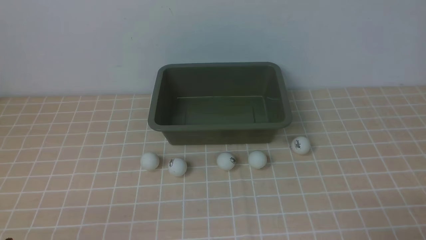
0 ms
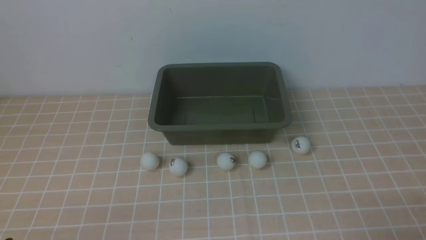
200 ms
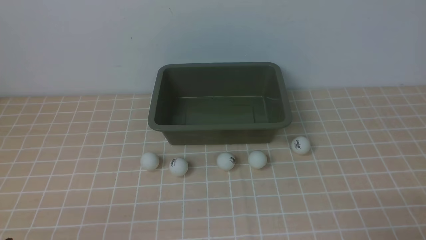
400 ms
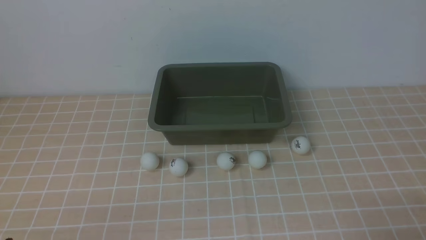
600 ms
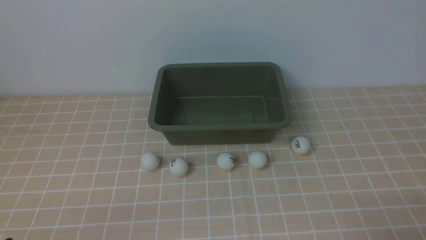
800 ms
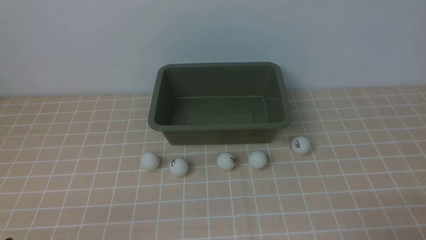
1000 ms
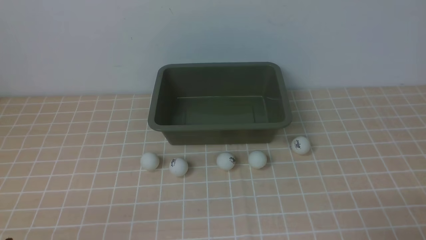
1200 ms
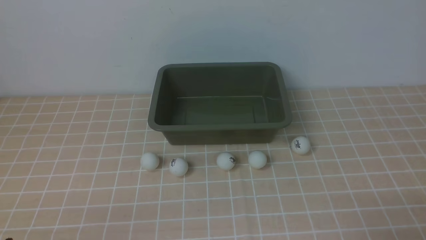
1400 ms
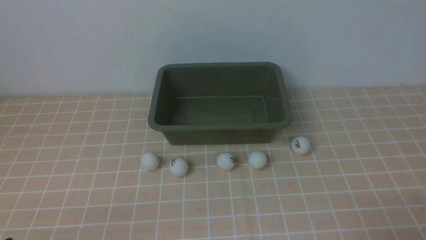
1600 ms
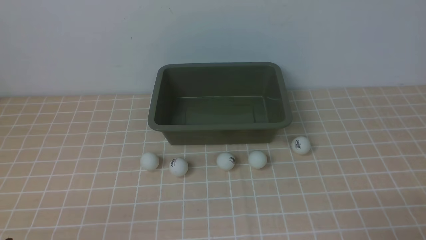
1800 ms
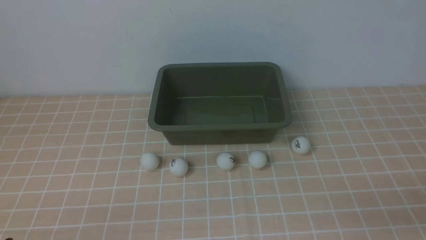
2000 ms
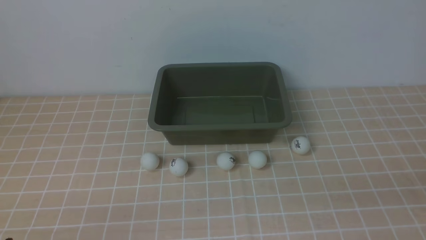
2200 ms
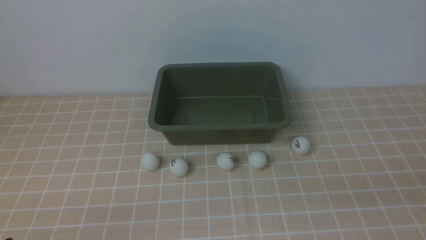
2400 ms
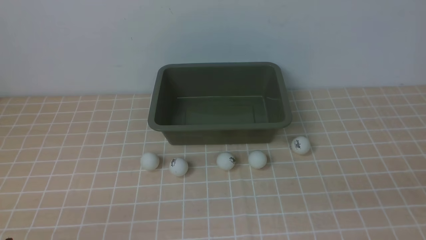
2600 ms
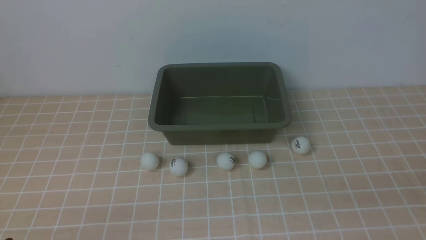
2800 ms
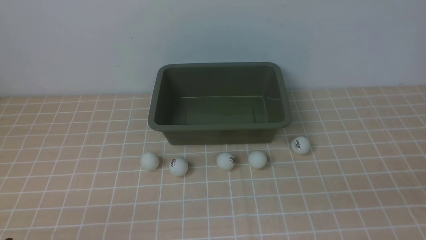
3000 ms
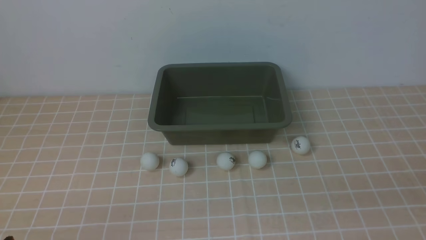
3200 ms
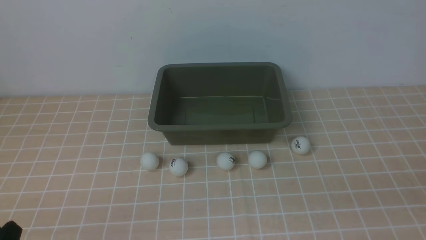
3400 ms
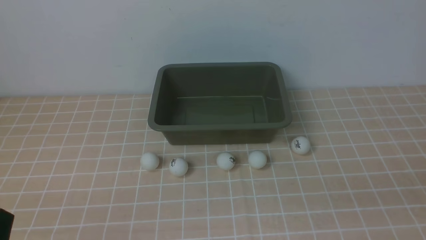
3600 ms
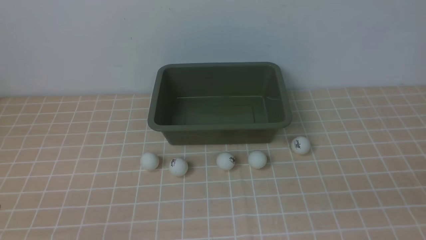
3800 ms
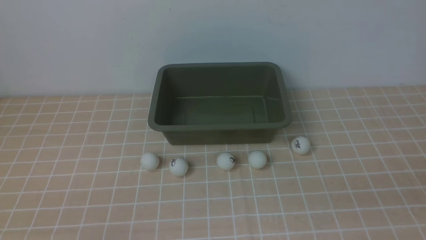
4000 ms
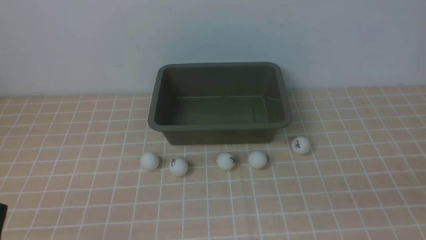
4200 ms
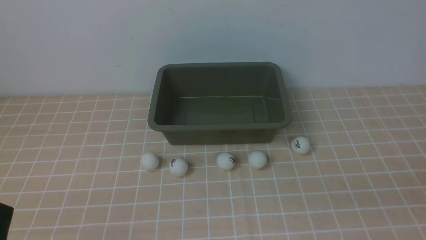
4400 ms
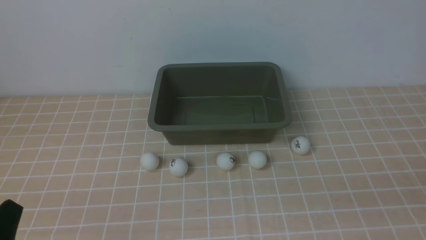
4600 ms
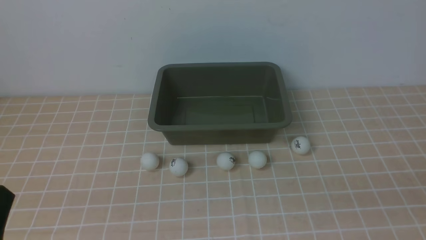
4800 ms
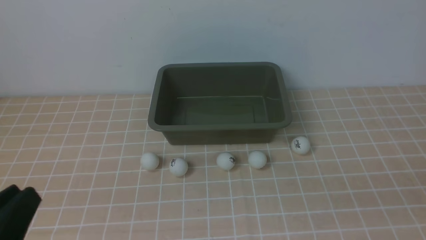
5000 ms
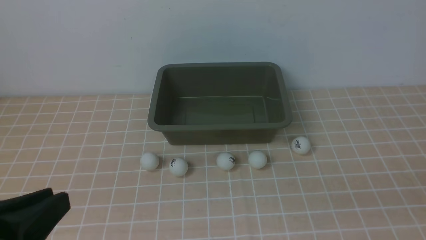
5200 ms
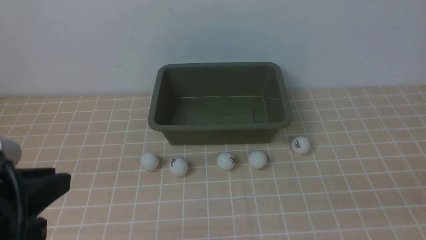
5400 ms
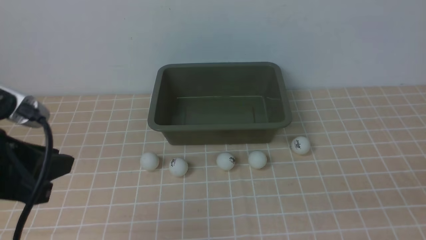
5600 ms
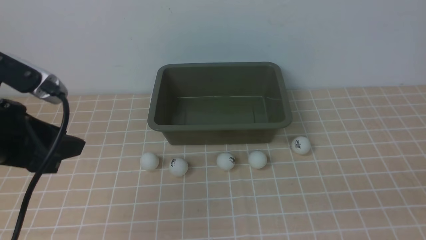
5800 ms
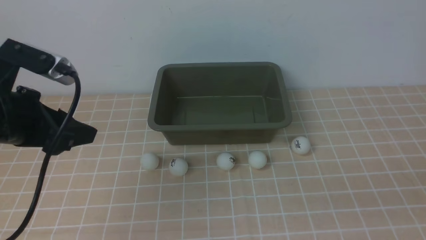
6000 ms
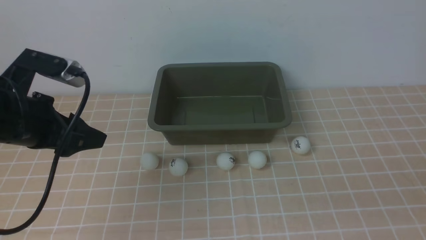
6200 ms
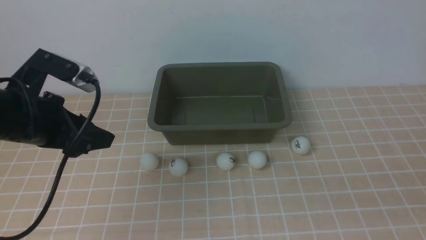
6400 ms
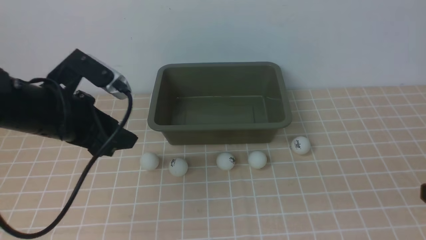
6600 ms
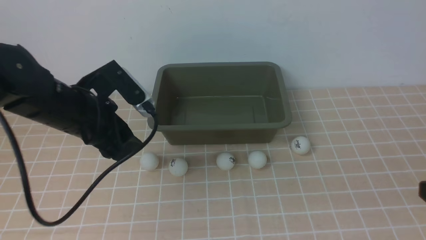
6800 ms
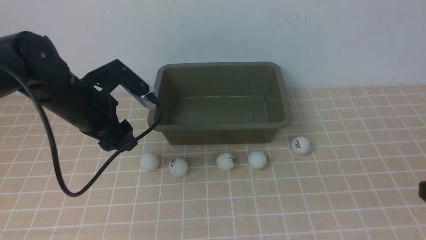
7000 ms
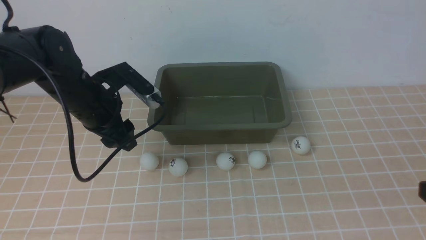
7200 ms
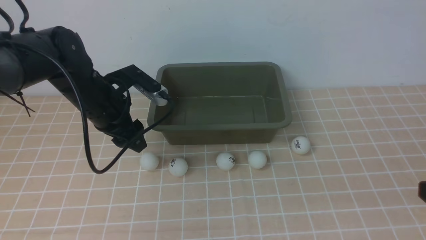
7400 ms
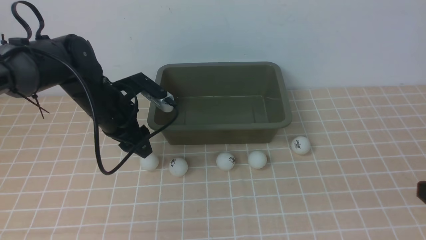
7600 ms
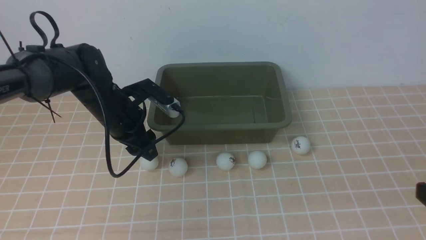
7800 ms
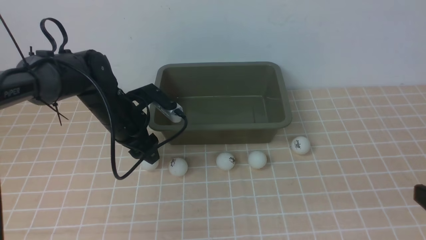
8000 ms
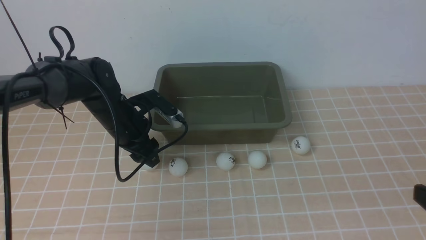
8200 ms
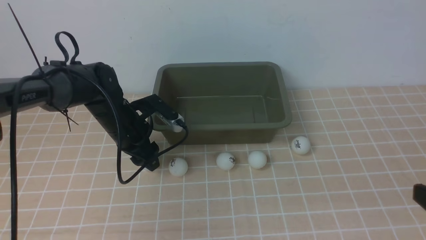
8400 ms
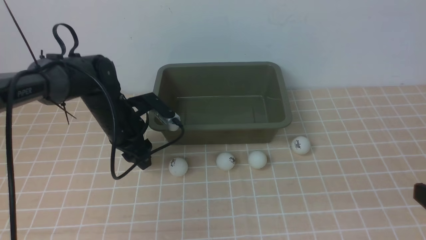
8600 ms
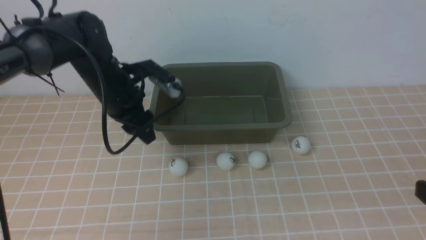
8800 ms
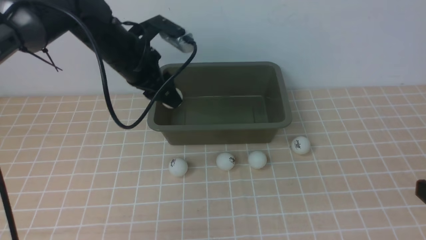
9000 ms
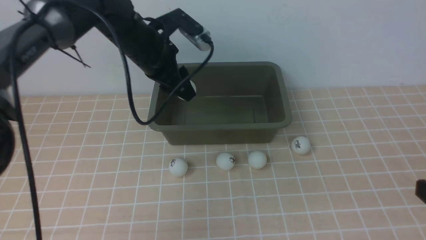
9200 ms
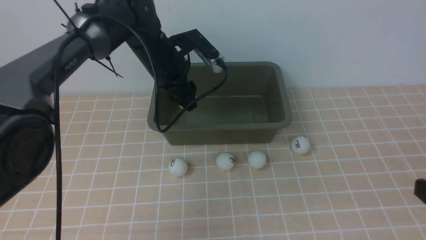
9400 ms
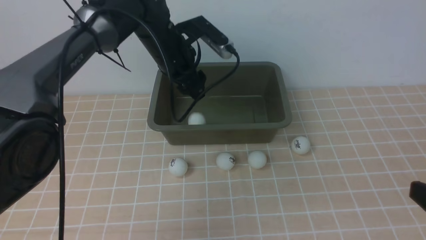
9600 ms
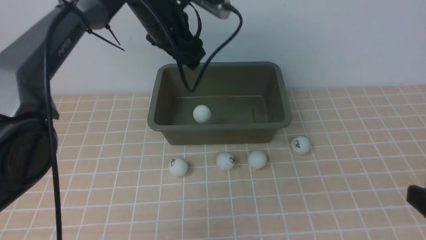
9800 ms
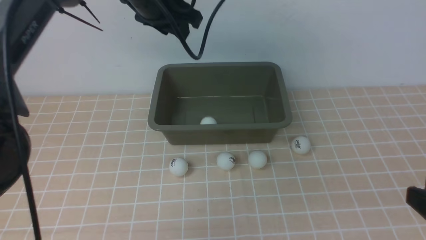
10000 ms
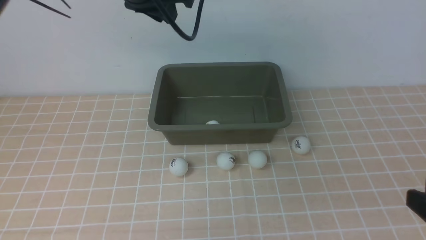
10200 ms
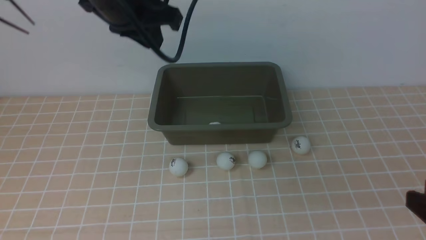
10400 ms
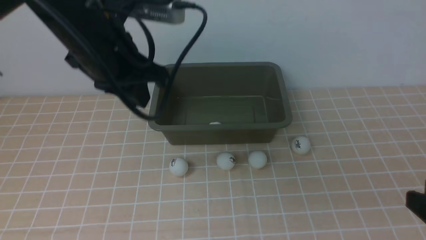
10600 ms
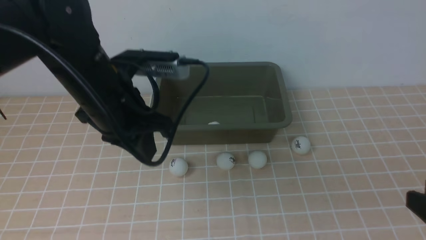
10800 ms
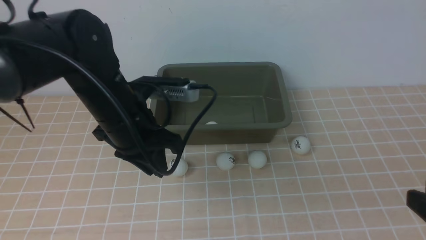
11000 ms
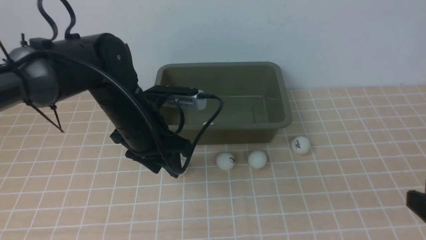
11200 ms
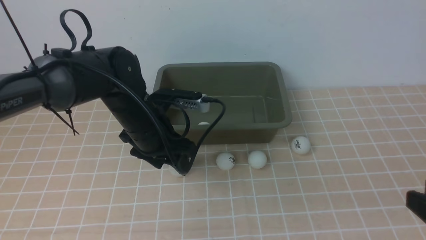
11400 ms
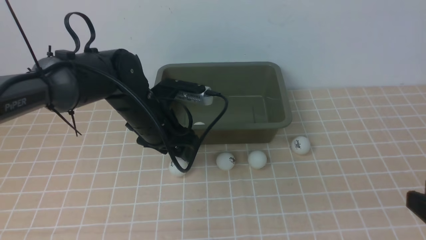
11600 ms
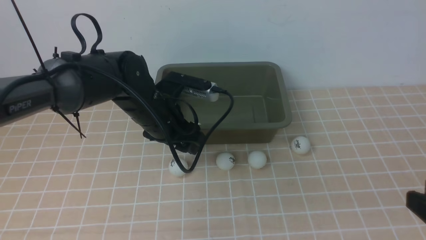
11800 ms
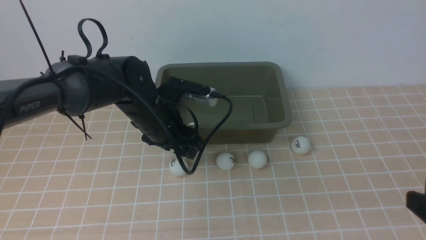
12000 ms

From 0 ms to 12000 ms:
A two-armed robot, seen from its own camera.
Step, from 0 ms to 8800 ms: use the left arm to clamp the table tennis ball closest to it.
Step, from 9000 ms to 9800 ms: use the left arm to put the table tennis ball into the box.
From 0 ms to 1600 ms: The two grippers keep their place.
From 4400 ms to 6000 ms: The left gripper goes about 20 cm forward and upward, and opens.
From 6000 ms to 7600 ms: The left gripper shifts roughly 20 cm forward, downward and to the right. Meanwhile the right gripper moves forward, about 5 cm.
From 7600 ms to 9000 ms: The left gripper is displaced upward by some 5 cm.
From 9000 ms to 10400 ms: The left gripper is displaced upward and backward by roughly 15 cm, and closes.
From 10400 ms to 12000 ms: The left gripper is displaced downward by approximately 20 cm, and opens up.

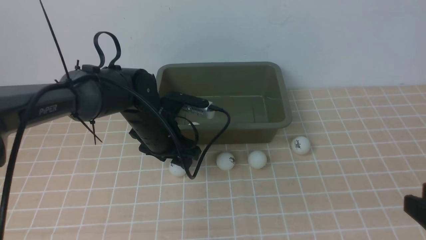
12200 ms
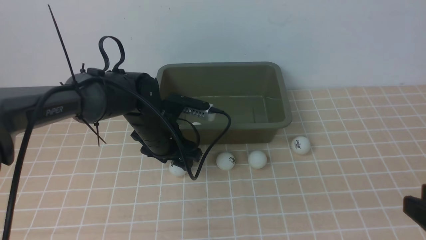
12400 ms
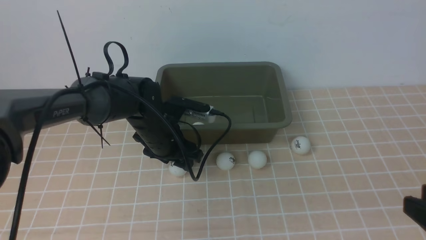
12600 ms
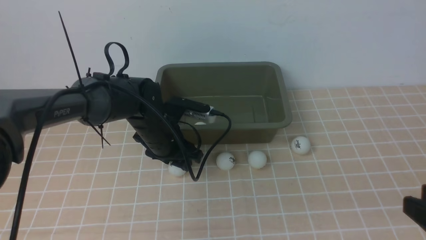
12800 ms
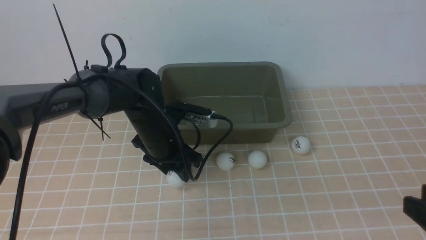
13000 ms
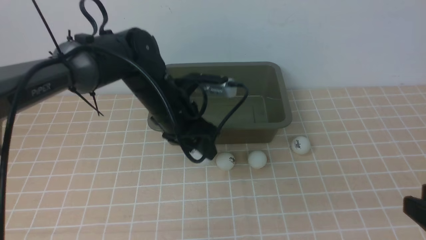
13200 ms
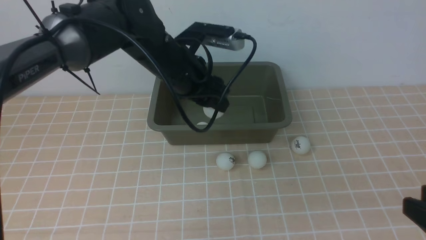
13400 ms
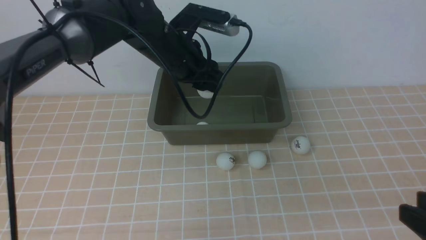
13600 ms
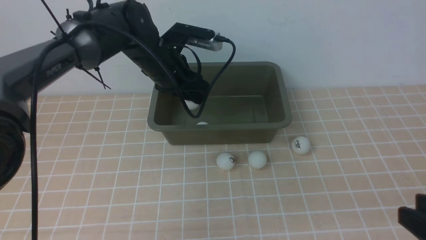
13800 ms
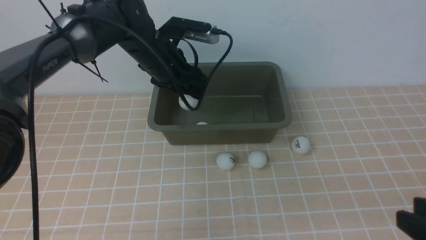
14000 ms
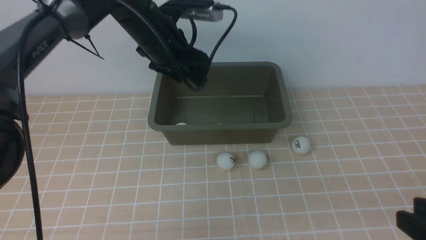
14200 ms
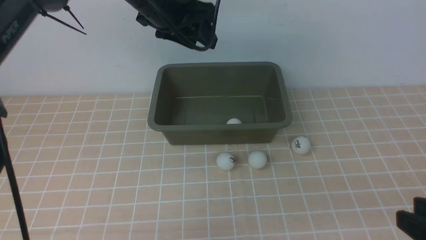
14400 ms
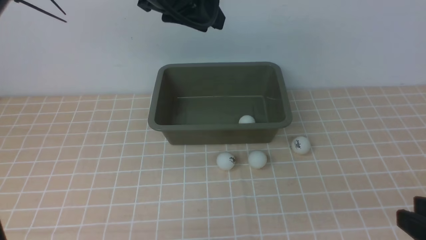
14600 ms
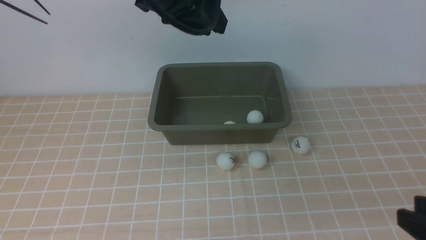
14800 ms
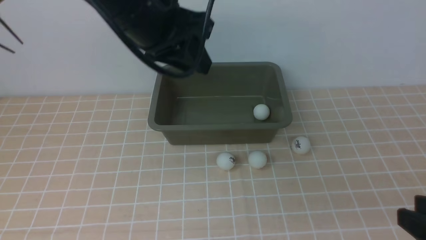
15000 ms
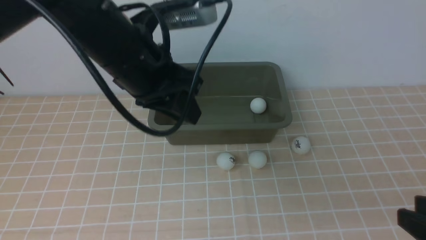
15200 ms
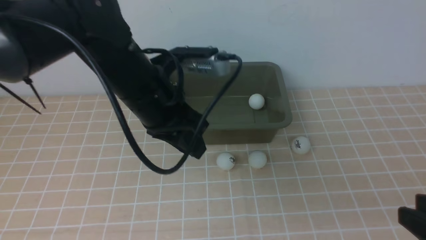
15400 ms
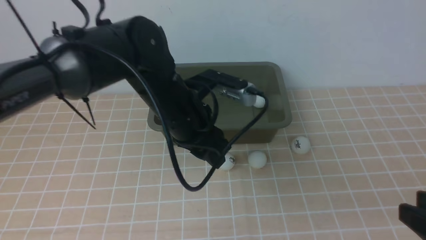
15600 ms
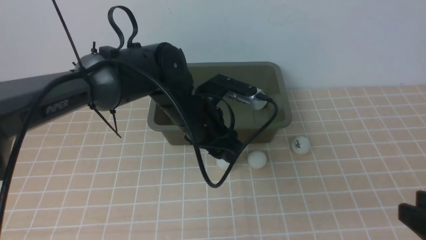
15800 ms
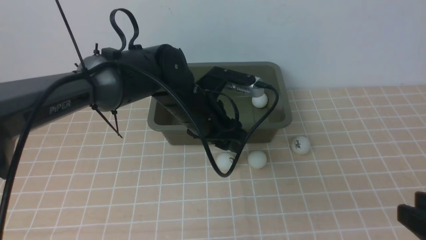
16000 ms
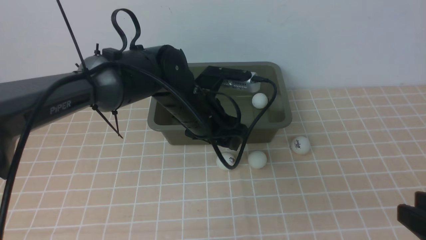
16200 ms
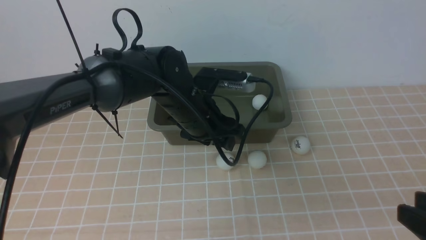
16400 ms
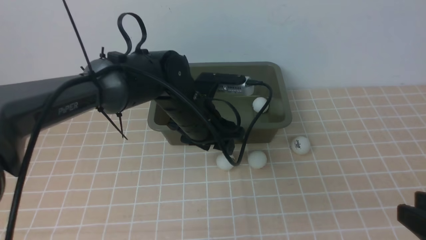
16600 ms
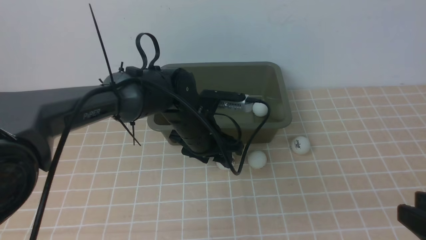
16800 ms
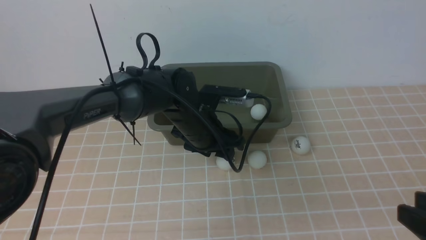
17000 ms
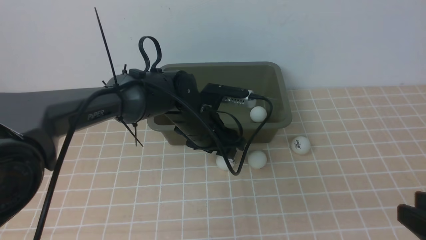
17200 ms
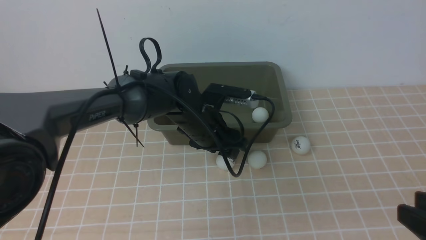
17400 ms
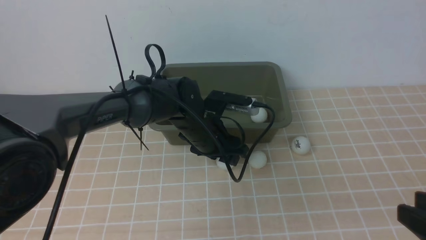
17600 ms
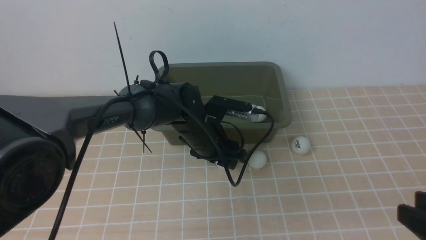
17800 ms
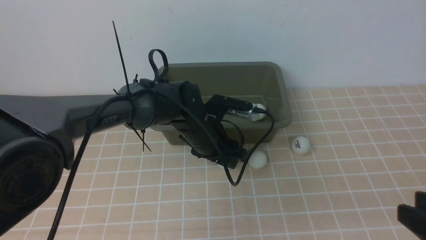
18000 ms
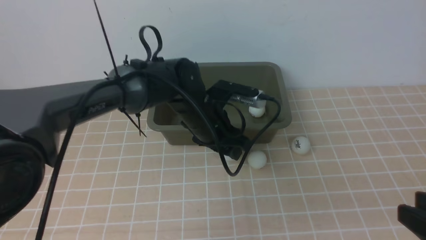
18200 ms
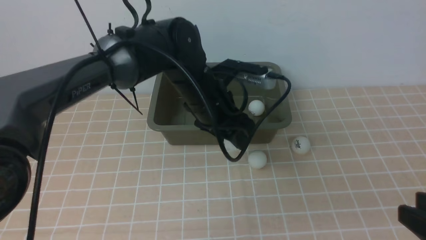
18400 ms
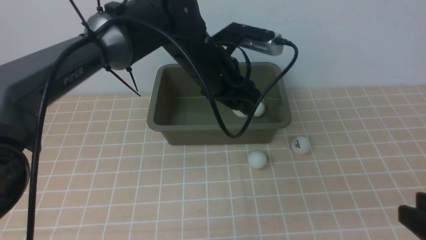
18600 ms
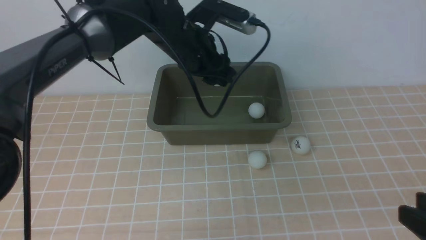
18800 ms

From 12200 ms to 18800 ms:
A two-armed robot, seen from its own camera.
Step, from 13200 ms to 14400 ms: use the left arm to put the table tennis ball into the box.
Step, from 14600 ms to 18400 ms: use the left arm to clamp the table tennis ball closest to it.
From 12200 ms to 13800 ms: The left gripper goes some 10 cm upward and forward.
From 13800 ms to 15400 ms: The left gripper travels backward by some 10 cm, and travels upward and back again, about 15 cm each way.
From 15400 ms to 17200 ms: The left gripper goes some 15 cm downward and forward, and opens.
From 17200 ms to 18800 ms: The left gripper travels upward by roughly 10 cm.
